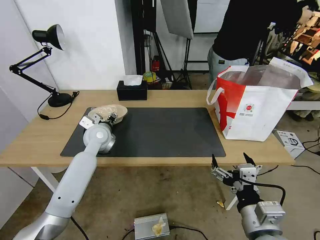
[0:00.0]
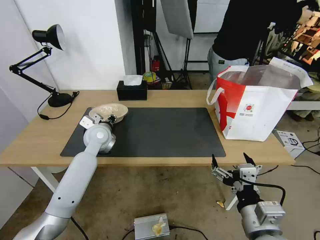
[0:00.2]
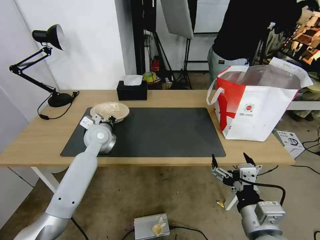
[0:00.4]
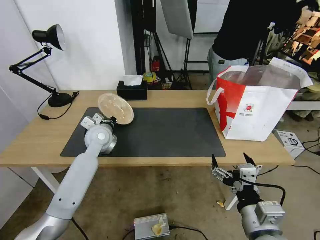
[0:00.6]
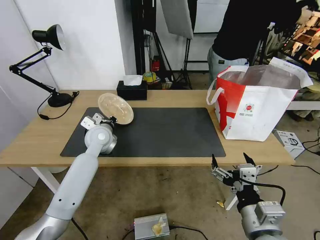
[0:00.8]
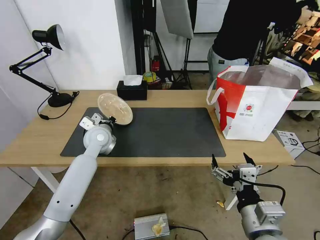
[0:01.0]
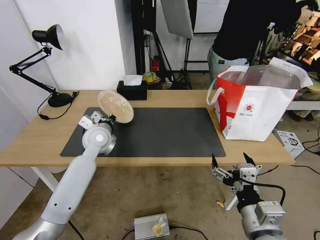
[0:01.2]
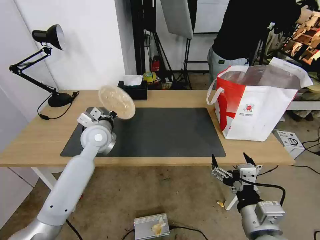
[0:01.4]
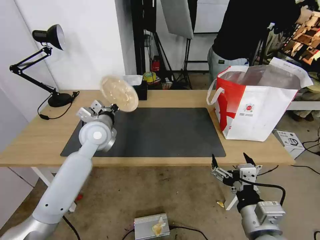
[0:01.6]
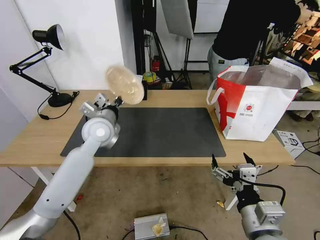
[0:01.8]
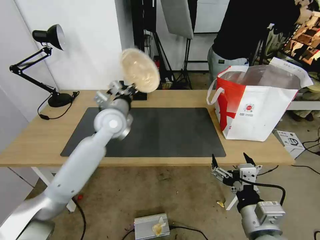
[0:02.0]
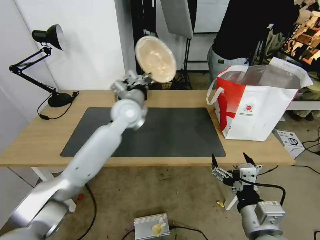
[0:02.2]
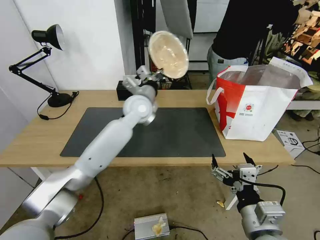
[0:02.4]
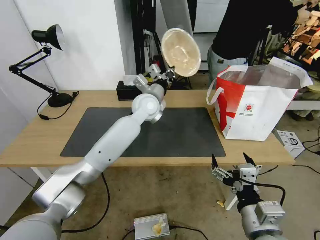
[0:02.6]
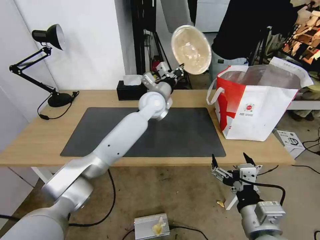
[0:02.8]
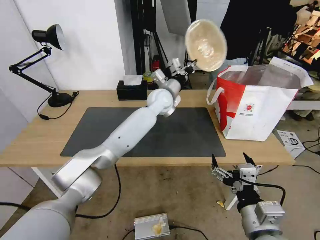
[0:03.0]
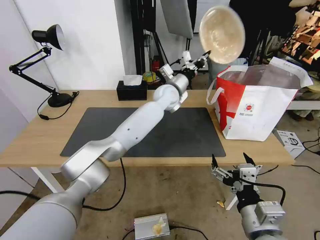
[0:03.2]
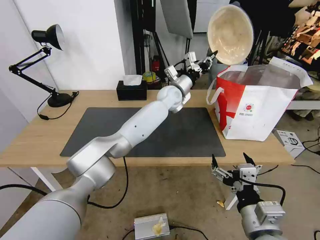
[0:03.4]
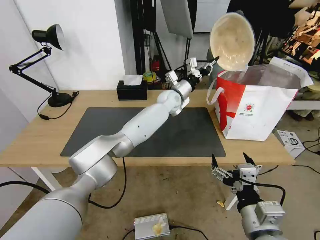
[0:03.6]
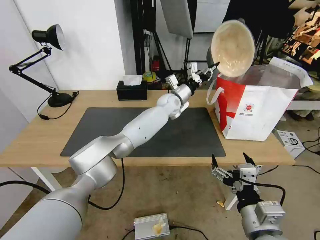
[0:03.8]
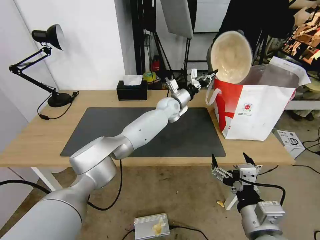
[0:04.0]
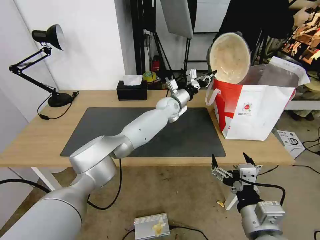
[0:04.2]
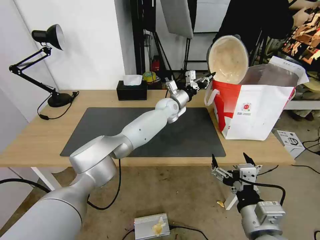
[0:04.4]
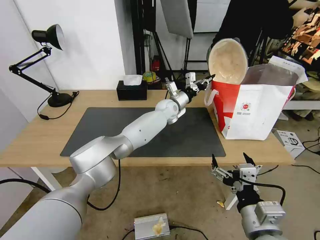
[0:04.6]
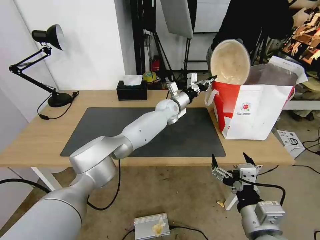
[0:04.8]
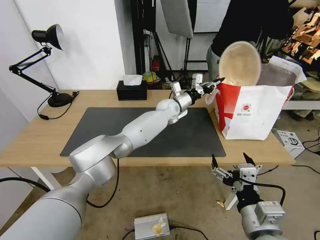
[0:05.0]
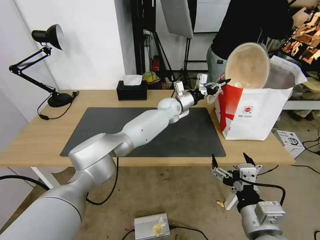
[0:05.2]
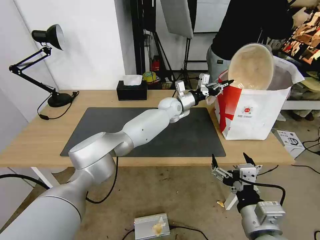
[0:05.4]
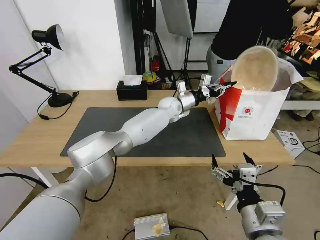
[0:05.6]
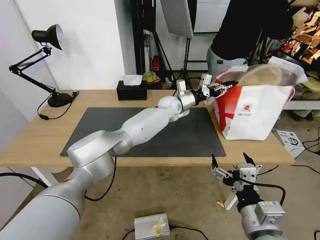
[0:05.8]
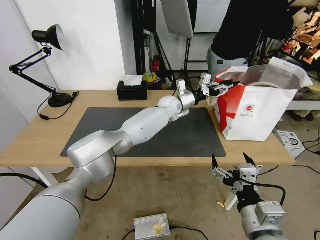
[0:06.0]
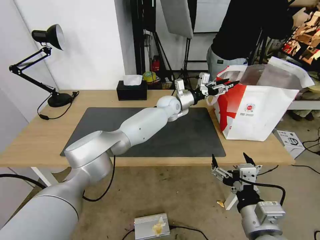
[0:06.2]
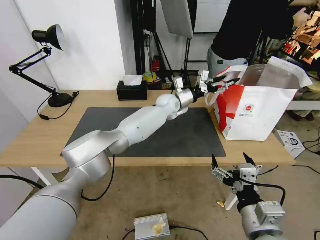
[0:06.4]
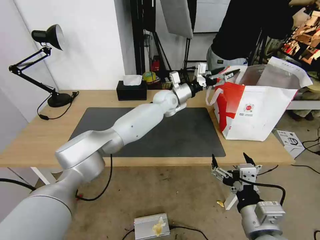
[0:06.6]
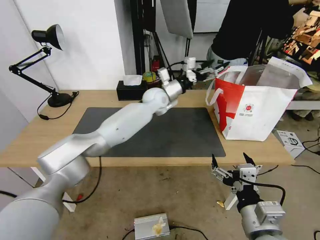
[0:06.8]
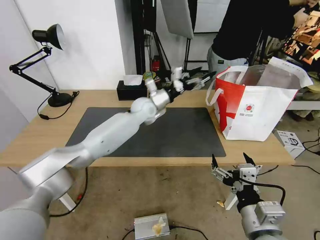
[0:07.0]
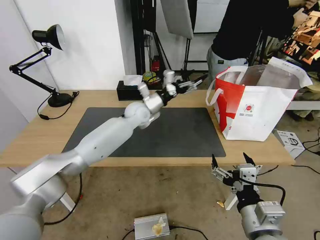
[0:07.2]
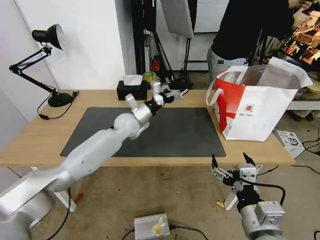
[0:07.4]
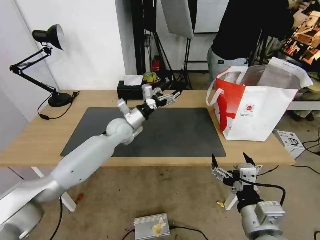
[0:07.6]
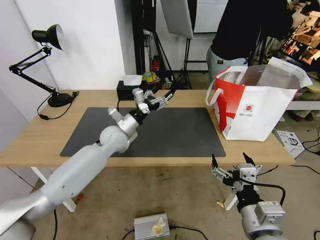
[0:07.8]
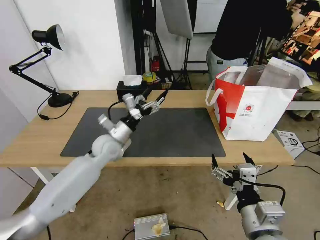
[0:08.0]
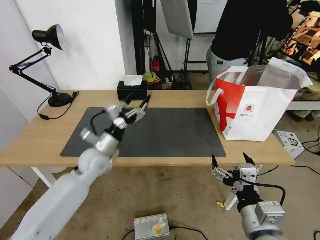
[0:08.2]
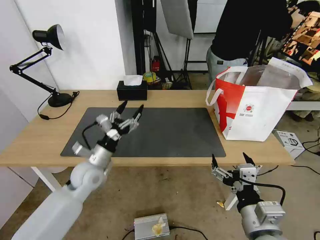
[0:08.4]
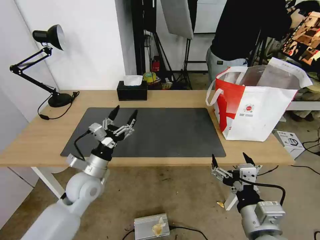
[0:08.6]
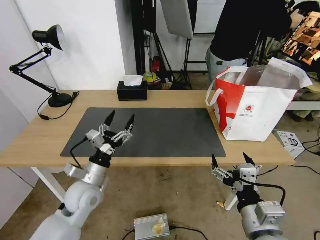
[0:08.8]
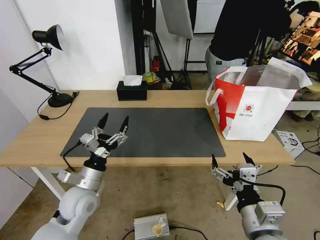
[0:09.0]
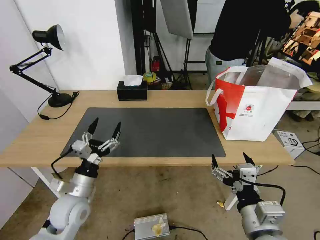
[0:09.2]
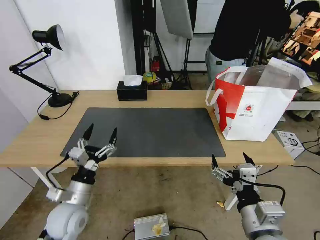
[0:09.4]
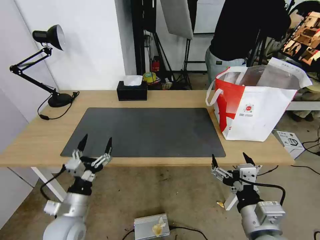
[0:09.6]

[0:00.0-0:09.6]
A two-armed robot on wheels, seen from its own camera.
Task of the whole recording: Pick up the trash from the table and place it into the takeout bag.
0:00.0 to 0:01.6: The left gripper changes place by approximately 5 cm, and closes.
0:01.6 to 0:03.2: The left gripper moves to the right and forward, approximately 30 cm.
0:03.2 to 0:04.8: The left gripper shifts approximately 10 cm downward.
0:04.8 to 0:06.4: The left gripper opens its fingers.
0:06.4 to 0:08.0: The left gripper heads to the left and backward, covering roughly 30 cm.
0:08.0 to 0:09.6: The left gripper travels backward by roughly 25 cm.

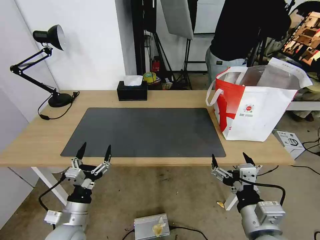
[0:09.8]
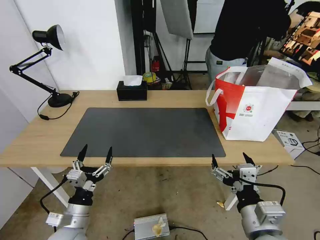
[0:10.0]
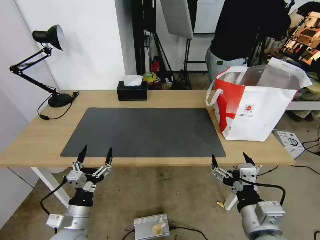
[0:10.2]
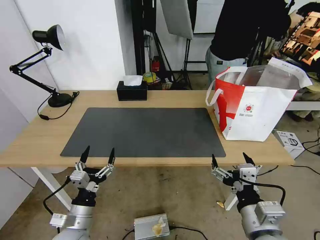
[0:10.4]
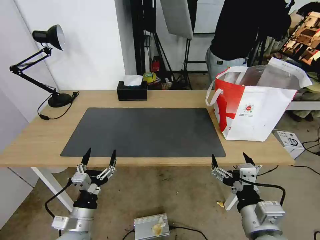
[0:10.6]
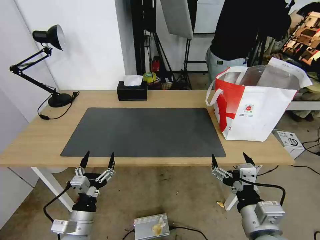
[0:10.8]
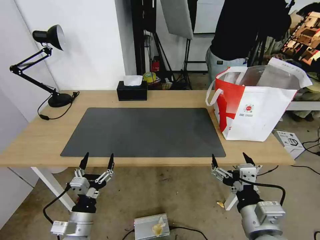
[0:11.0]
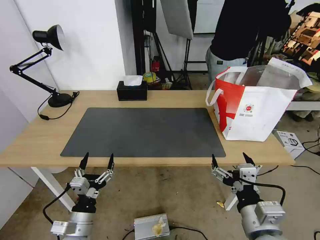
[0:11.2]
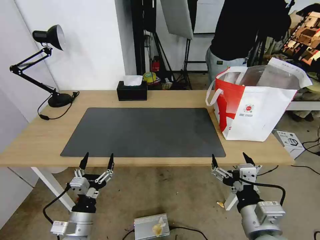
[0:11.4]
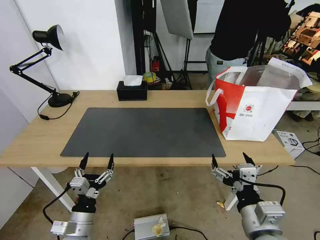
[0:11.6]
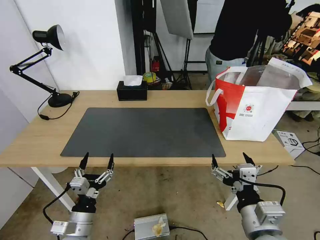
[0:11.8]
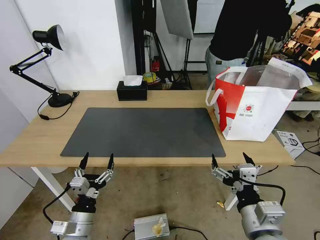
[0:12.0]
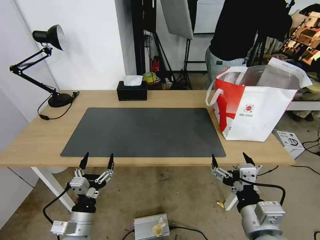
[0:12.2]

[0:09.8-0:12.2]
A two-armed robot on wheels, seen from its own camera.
Task of the whole recording: Pick up the trash from the table and place it into the takeout bag.
0:09.8 to 0:11.0: The grippers move only a little.
0:11.0 to 0:12.2: Neither gripper changes place.
